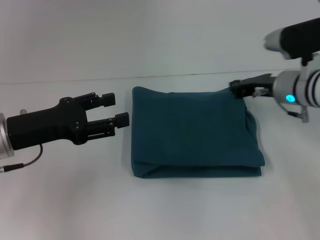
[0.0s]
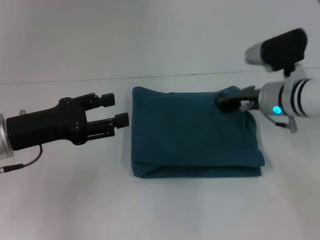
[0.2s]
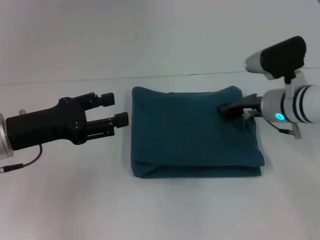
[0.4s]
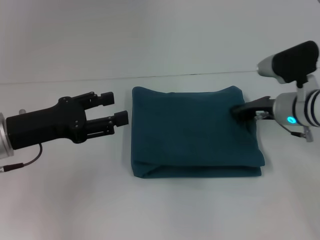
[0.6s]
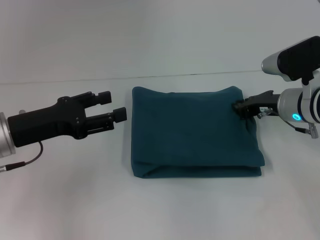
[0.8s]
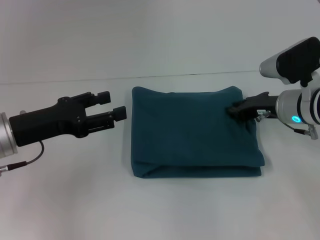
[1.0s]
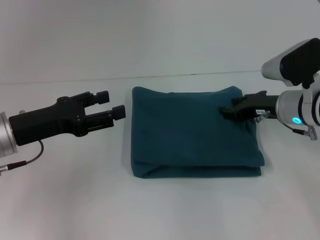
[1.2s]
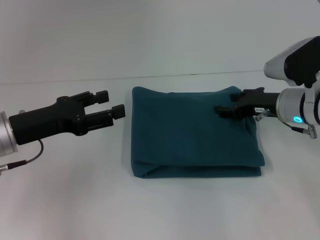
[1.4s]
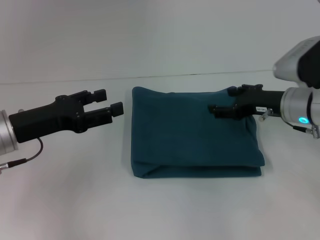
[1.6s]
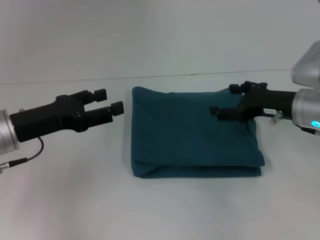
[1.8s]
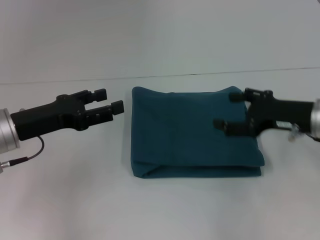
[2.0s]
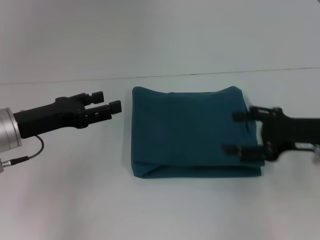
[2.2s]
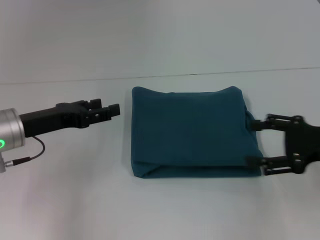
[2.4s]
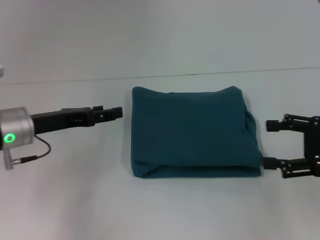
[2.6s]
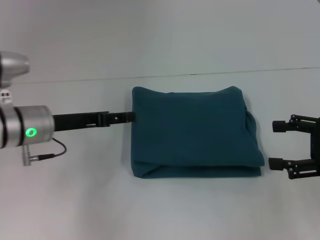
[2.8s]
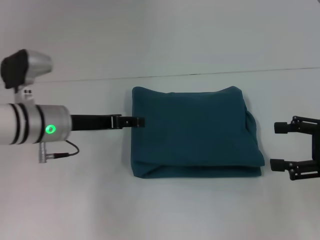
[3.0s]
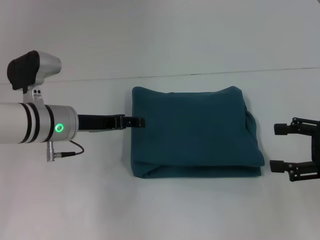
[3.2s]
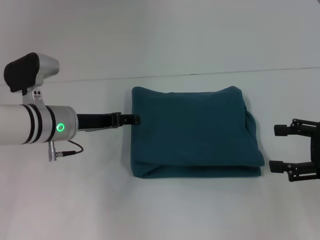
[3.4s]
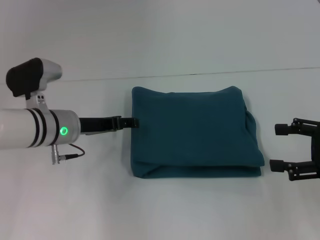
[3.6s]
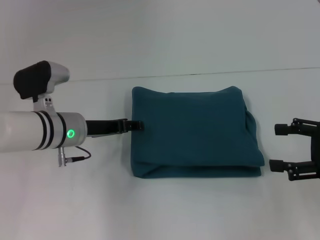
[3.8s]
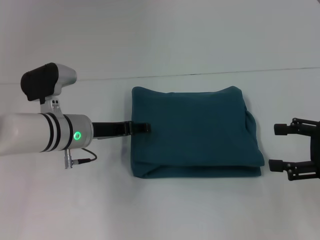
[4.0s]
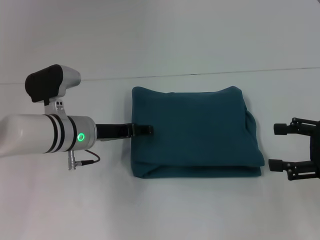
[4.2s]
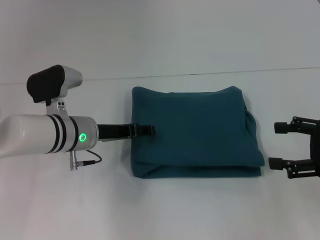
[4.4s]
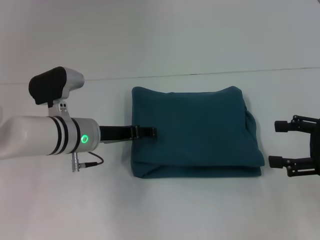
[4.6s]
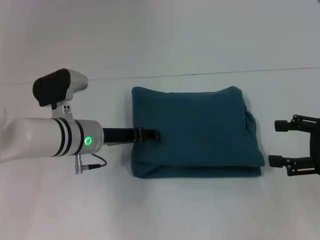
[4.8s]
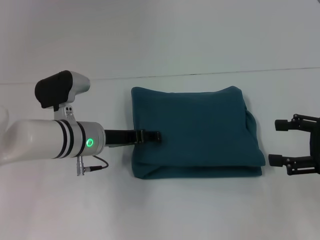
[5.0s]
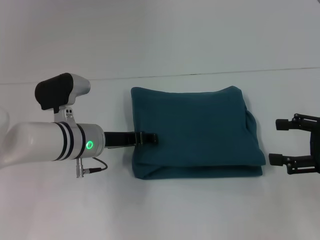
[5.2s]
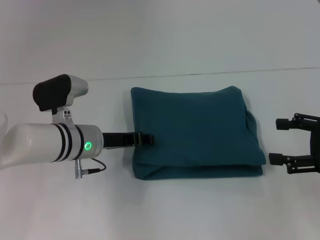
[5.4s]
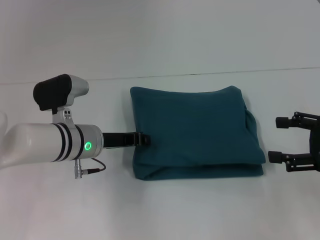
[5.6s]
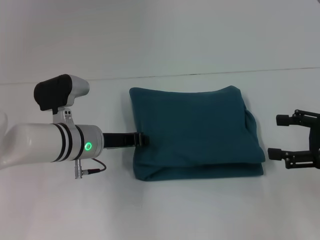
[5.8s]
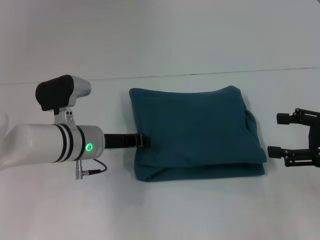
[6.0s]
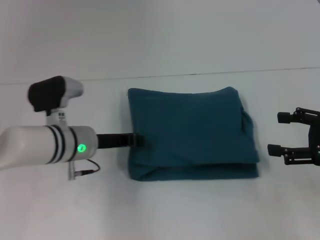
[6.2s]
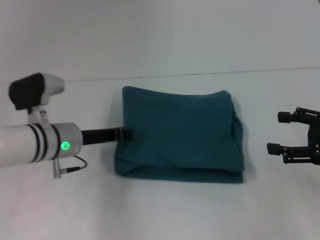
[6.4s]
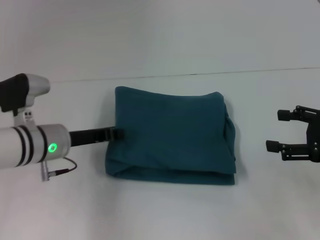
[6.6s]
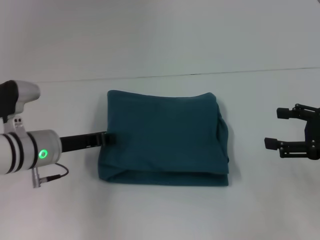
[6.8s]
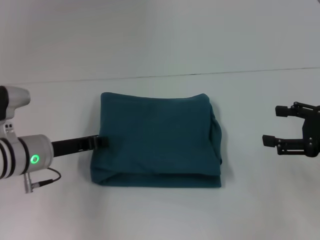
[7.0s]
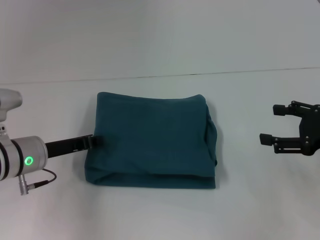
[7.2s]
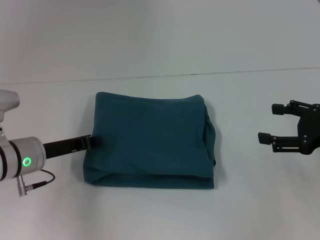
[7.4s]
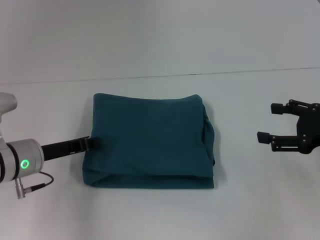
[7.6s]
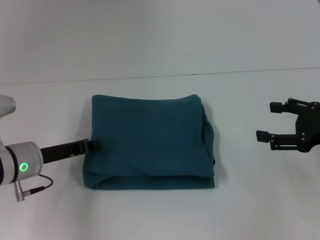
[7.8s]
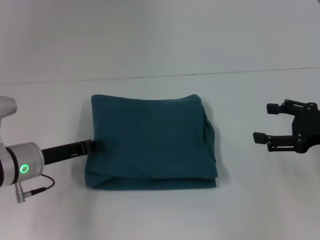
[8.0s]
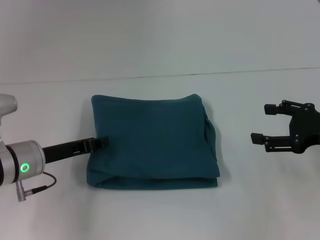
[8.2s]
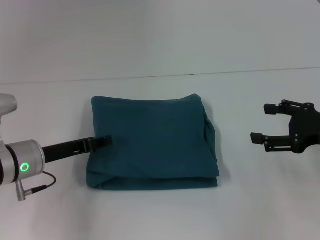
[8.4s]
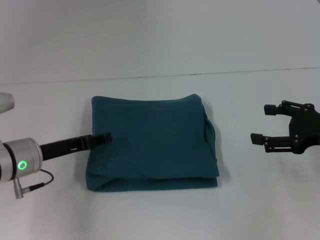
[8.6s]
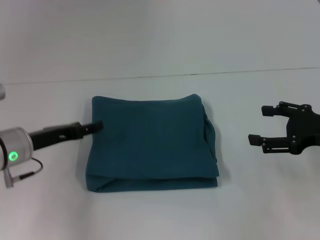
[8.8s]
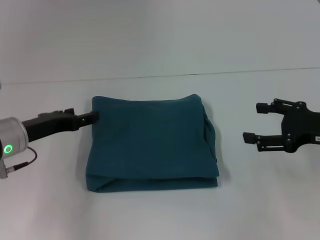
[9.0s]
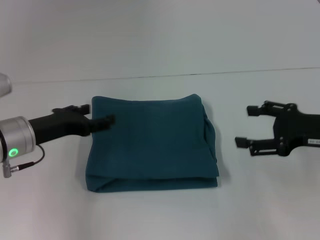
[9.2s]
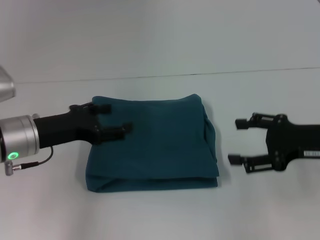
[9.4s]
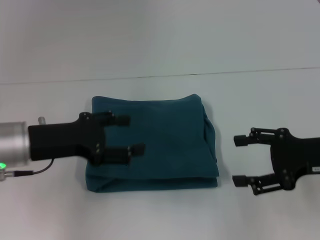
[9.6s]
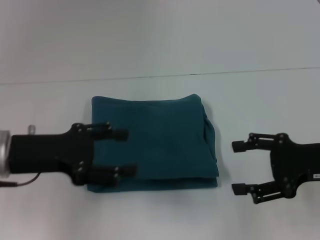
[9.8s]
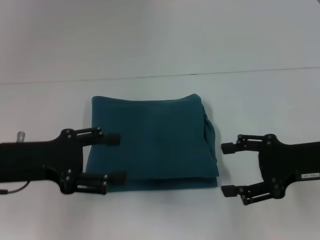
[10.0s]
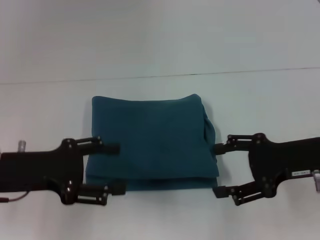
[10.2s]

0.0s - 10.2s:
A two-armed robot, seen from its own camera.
0.0s - 1.4s: The right gripper opens its fingers.
1.4s - 3.0s: The right gripper moves backward and to the right, about 15 cm, and opens. The left gripper shifts about 10 cm to the right and forward.
3.0s - 4.4s: The left gripper shifts by approximately 5 cm.
4.4s - 5.8s: The left gripper closes.
5.8s - 7.2s: The left gripper goes approximately 10 cm to the left.
7.2s - 8.8s: The left gripper opens.
8.8s - 10.2s: The right gripper shifts approximately 5 cm to the left; the left gripper is displaced backward by some 5 cm.

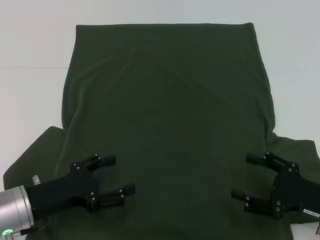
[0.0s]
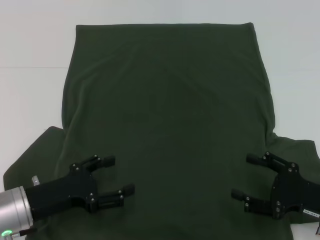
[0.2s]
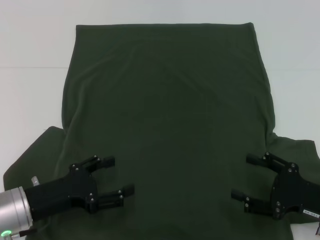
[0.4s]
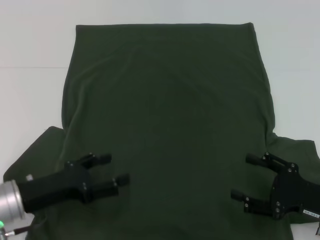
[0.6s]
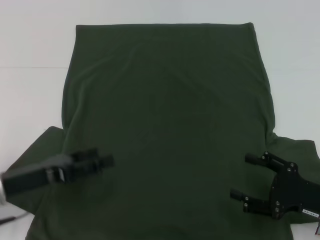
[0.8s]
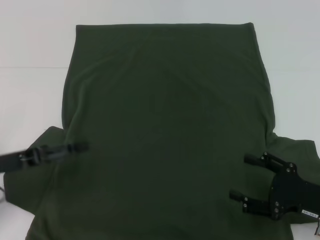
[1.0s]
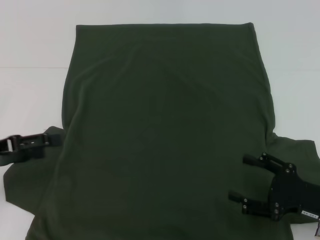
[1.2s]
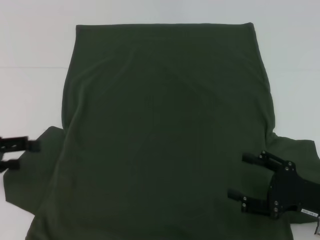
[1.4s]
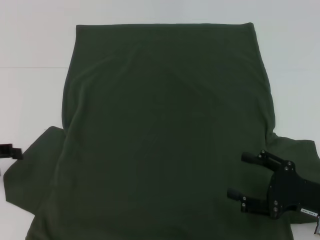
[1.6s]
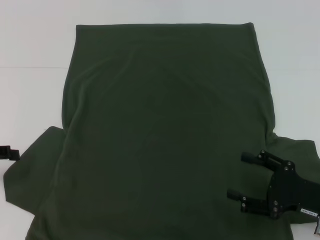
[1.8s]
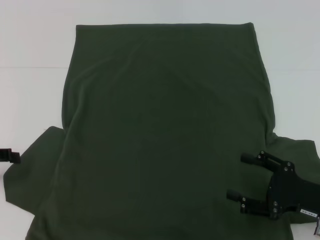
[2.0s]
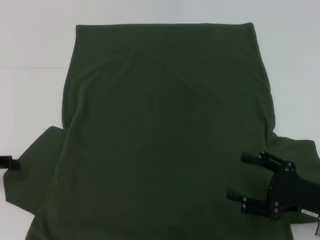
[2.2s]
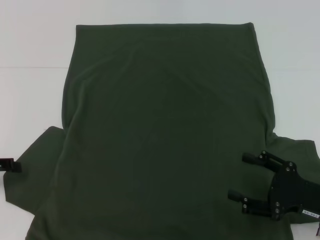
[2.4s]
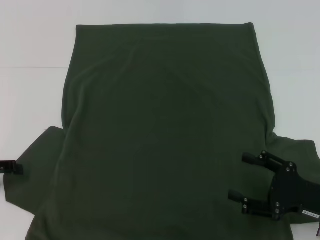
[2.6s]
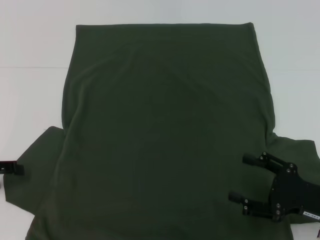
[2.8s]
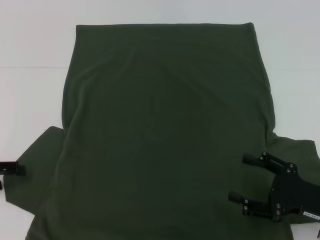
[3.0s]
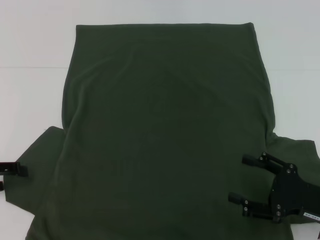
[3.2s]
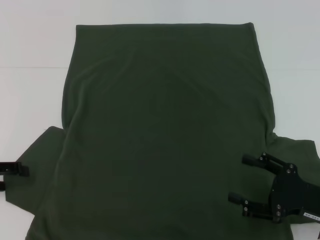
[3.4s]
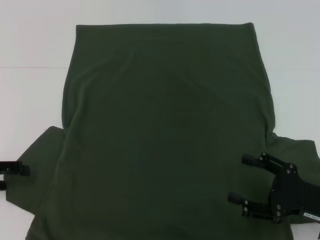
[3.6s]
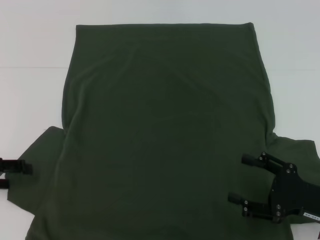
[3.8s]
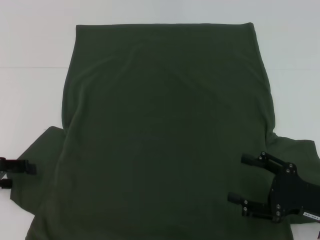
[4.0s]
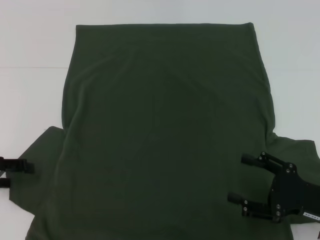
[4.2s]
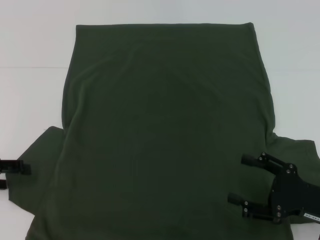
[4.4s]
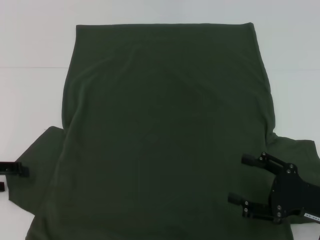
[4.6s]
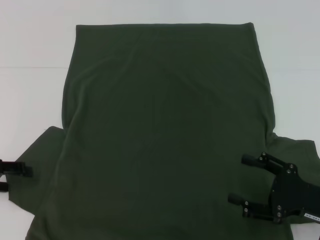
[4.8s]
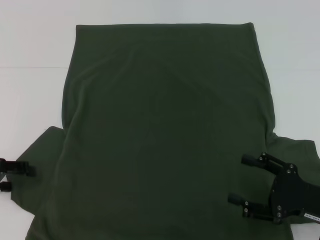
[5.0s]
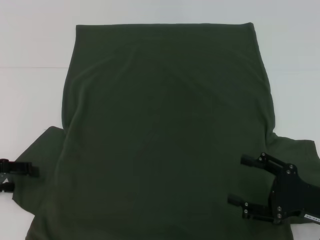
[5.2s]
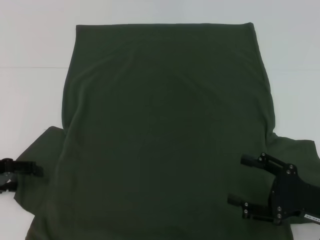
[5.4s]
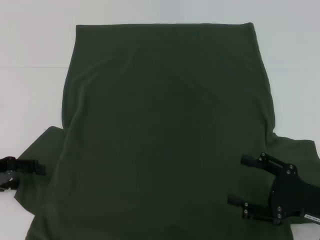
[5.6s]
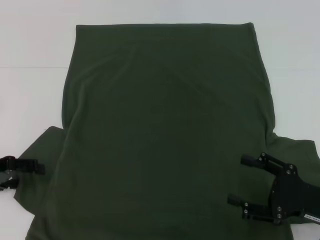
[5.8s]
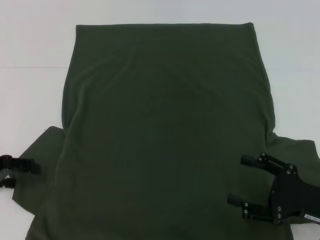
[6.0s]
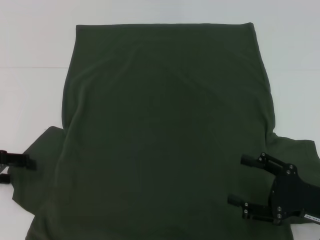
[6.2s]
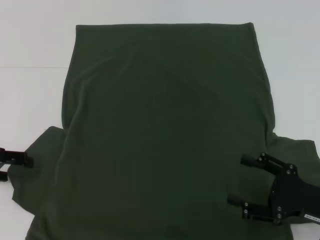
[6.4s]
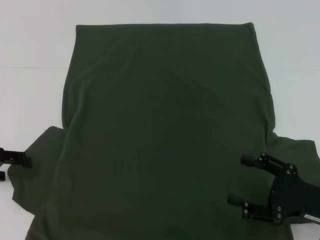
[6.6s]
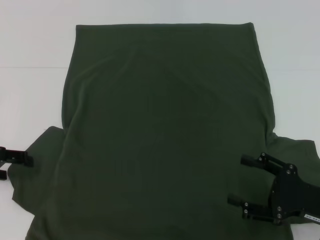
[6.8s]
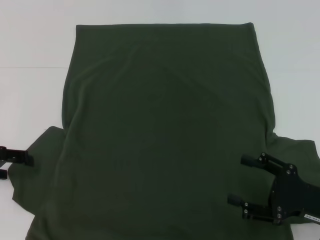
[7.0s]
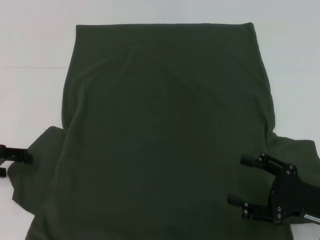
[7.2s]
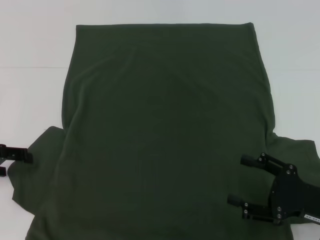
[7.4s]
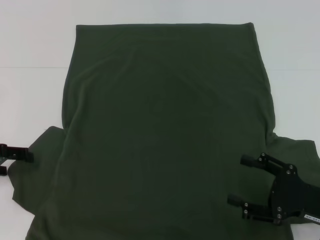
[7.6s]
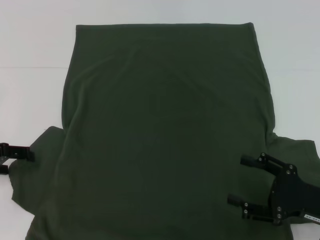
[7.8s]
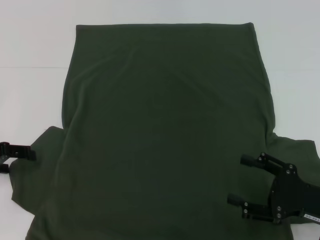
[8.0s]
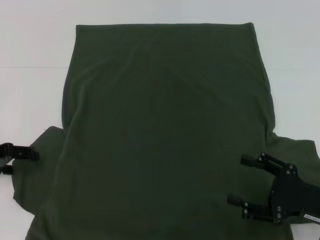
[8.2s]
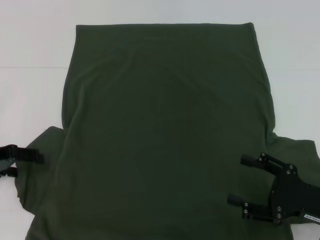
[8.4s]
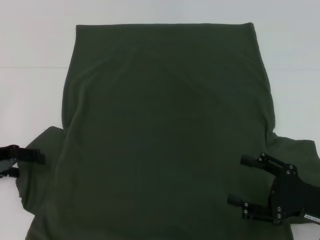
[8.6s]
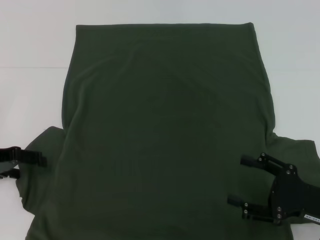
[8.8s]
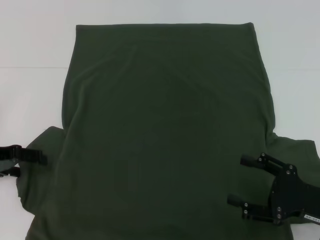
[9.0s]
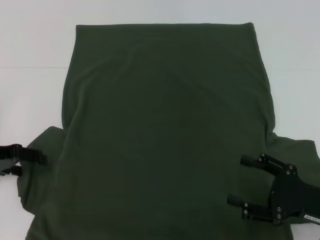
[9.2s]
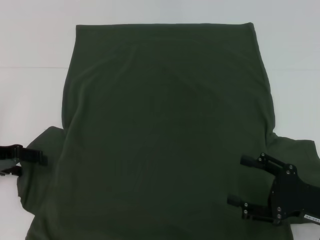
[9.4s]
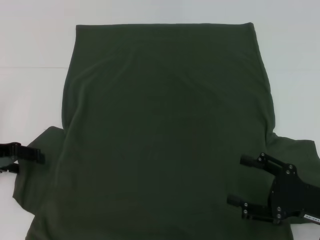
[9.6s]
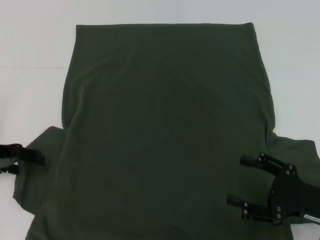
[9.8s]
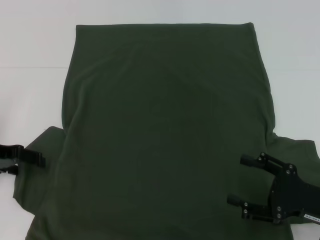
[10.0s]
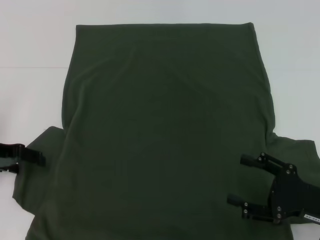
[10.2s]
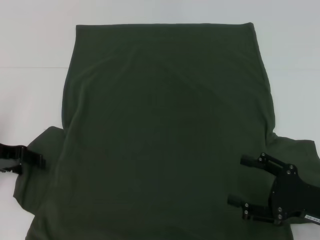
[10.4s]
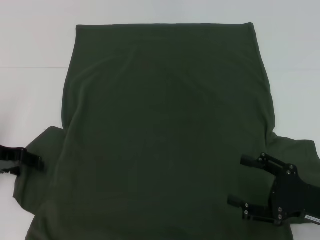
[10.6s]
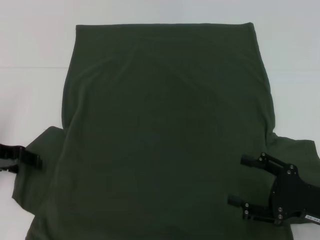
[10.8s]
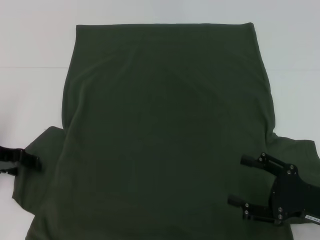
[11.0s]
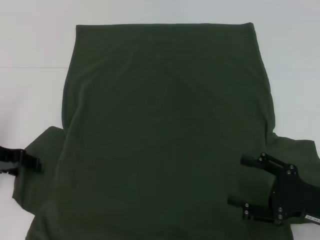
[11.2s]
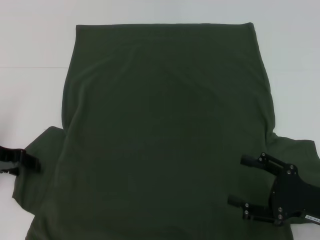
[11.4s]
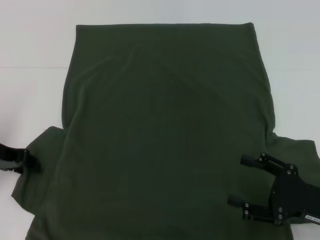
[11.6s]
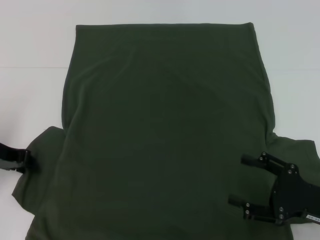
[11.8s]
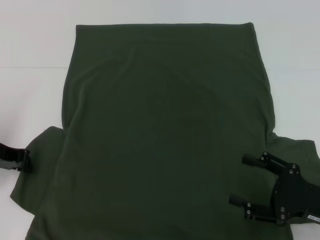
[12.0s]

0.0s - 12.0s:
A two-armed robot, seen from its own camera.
0.0s - 1.6s: The left gripper shifts approximately 15 cm to the left and upward.
1.6s - 3.0s: The grippers stay close to where they were, moving slightly.
3.0s - 4.4s: Neither gripper changes place.
6.0s - 9.0s: The grippers stay close to where they were, moving slightly.
10.4s - 12.0s: The left gripper closes up.
